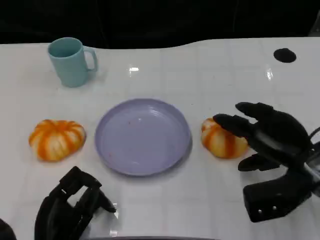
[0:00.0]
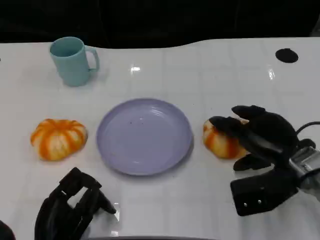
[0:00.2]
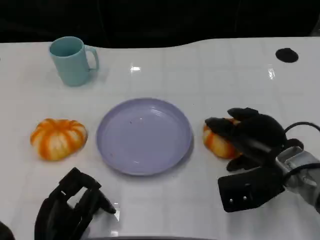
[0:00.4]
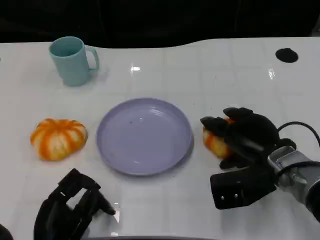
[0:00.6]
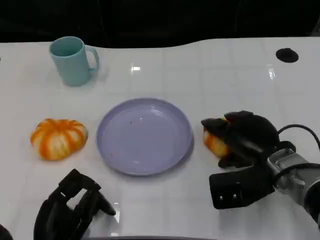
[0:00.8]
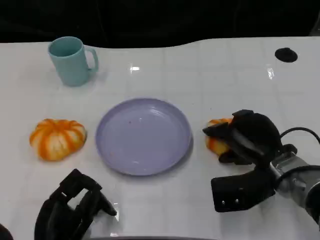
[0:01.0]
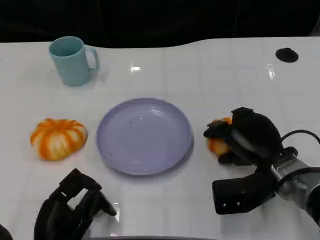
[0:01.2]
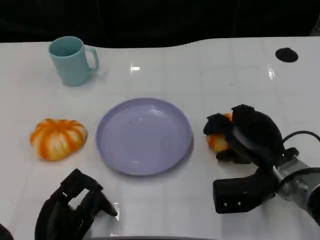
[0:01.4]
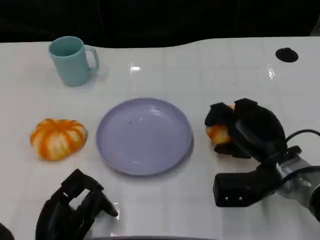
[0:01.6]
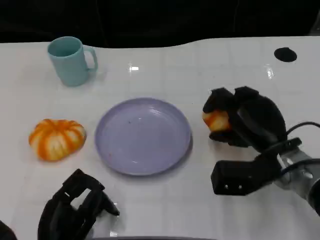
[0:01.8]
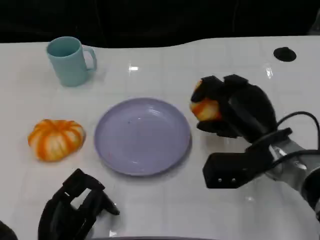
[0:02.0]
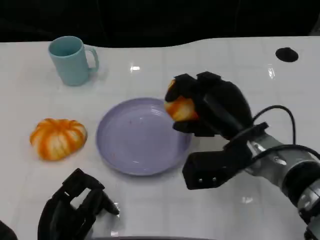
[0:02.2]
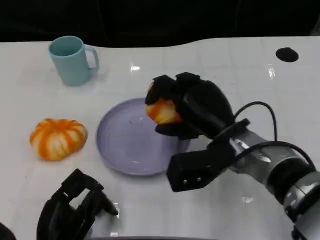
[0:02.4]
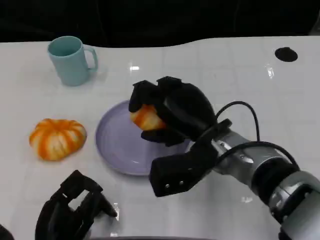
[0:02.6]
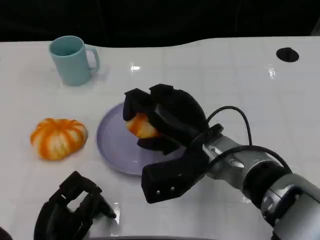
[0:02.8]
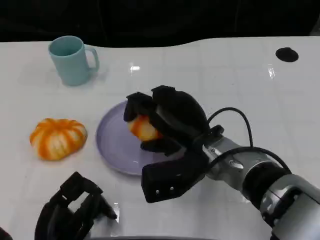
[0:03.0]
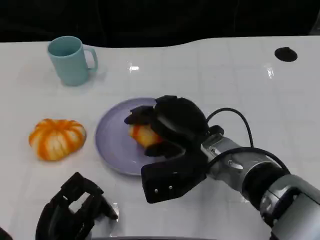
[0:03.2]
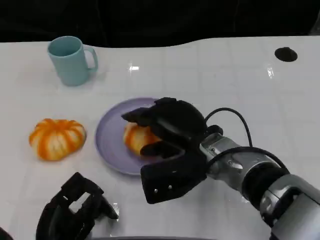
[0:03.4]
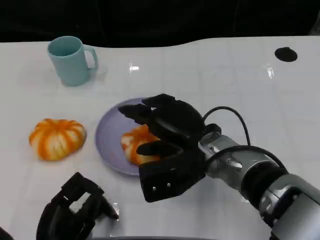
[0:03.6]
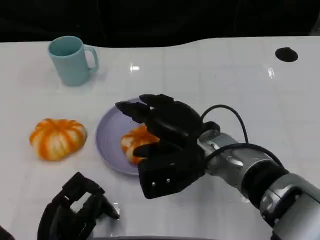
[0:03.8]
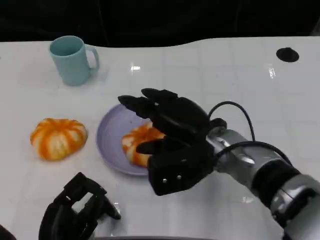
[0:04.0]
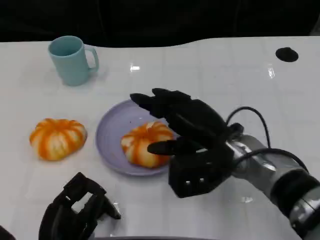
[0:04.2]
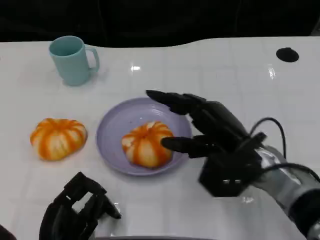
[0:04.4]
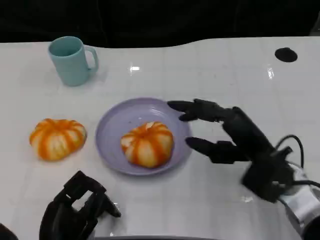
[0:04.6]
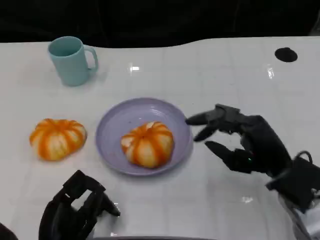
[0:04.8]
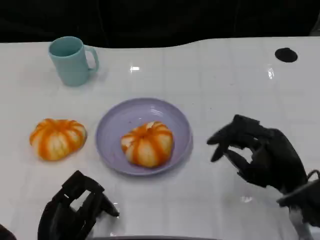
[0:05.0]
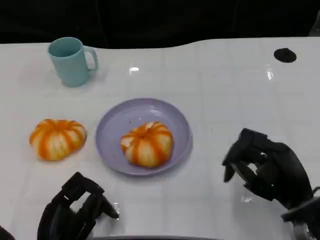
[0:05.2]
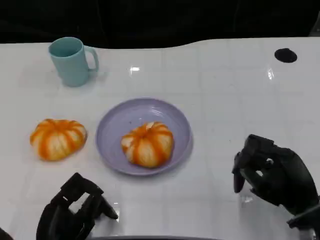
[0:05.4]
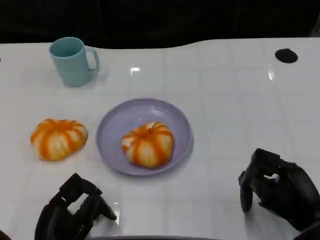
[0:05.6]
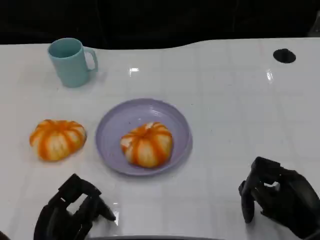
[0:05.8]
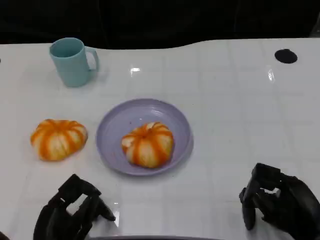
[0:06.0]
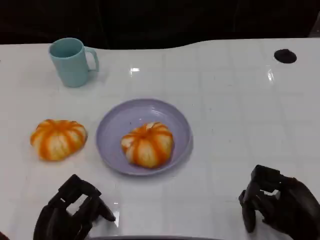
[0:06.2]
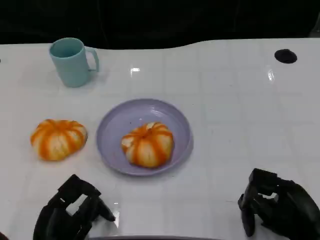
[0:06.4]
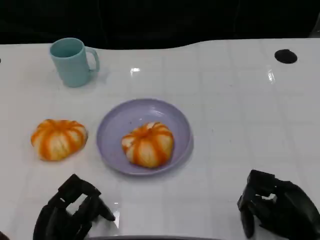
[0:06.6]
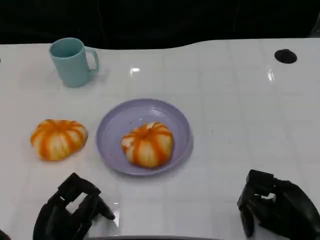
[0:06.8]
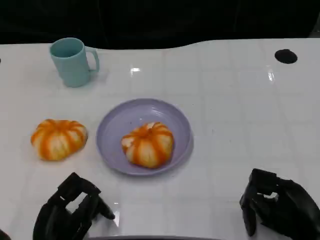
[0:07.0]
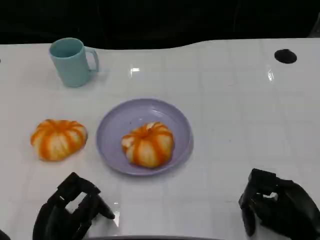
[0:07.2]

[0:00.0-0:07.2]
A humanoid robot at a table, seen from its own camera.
Task of the whole recording: Grasp the bread from the table and place it into the plate.
0:00.0 to 0:01.4: There are only small adjustments of the hands.
0:01.4 to 0:02.8: The right hand travels to the left by roughly 10 cm.
0:02.8 to 0:04.4: The right hand shifts some 5 cm to the right.
0:04.4 to 0:05.8: The right hand heads to the right, backward and downward, covering approximately 15 cm.
0:05.8 to 0:07.2: The hands move only a little.

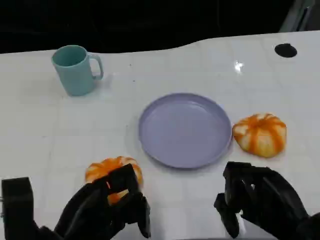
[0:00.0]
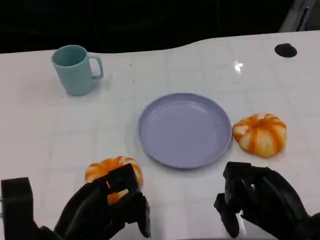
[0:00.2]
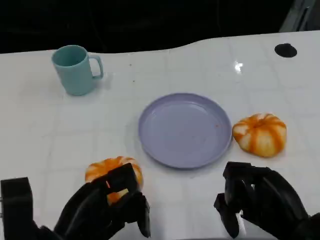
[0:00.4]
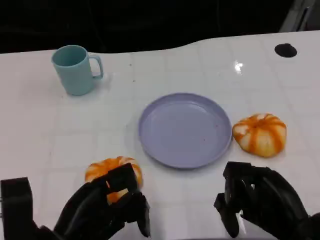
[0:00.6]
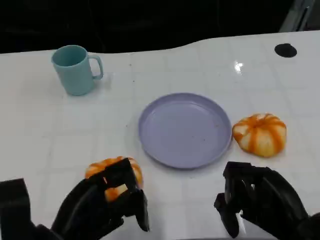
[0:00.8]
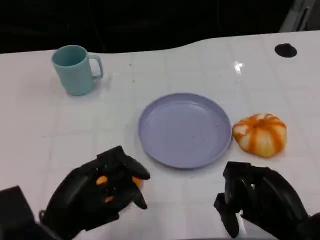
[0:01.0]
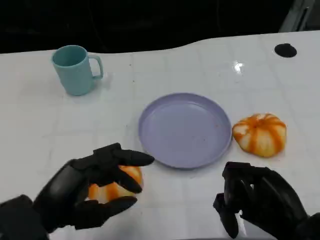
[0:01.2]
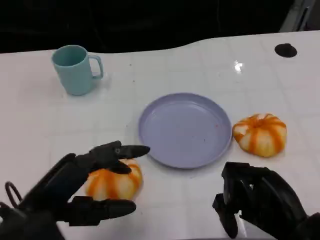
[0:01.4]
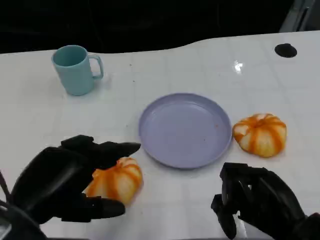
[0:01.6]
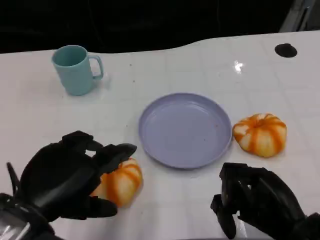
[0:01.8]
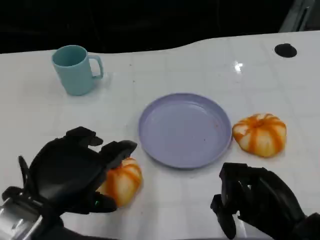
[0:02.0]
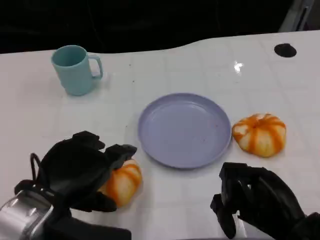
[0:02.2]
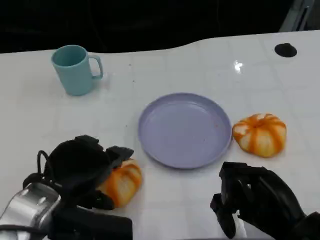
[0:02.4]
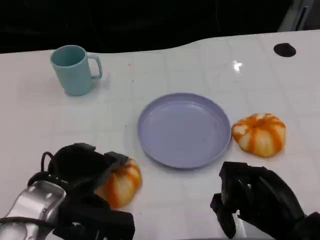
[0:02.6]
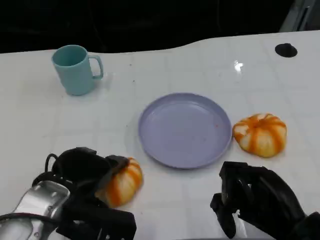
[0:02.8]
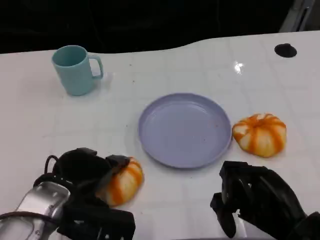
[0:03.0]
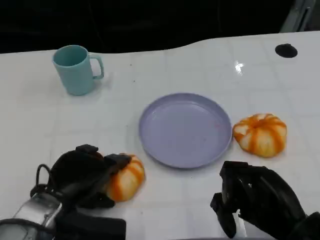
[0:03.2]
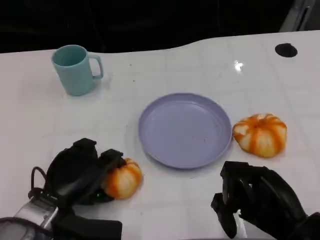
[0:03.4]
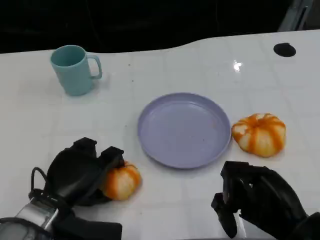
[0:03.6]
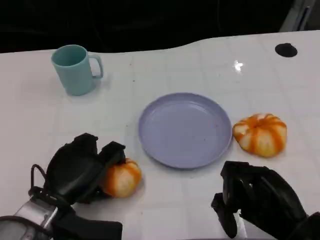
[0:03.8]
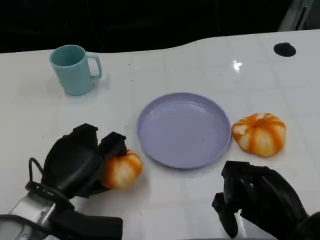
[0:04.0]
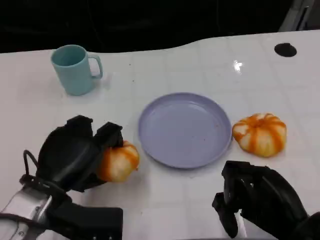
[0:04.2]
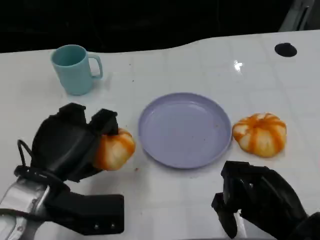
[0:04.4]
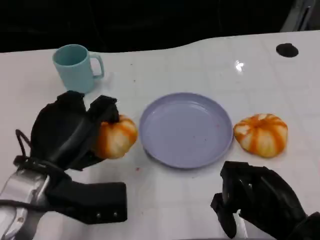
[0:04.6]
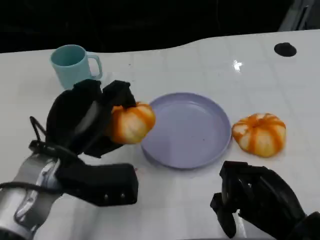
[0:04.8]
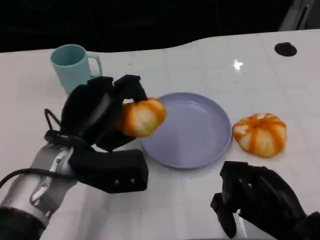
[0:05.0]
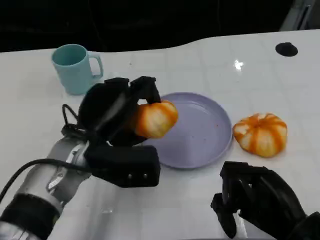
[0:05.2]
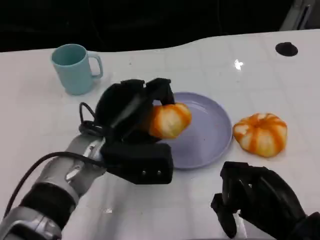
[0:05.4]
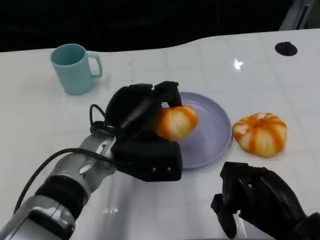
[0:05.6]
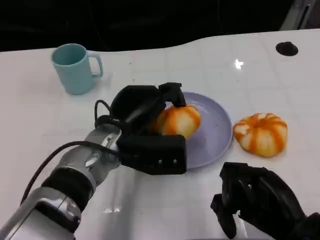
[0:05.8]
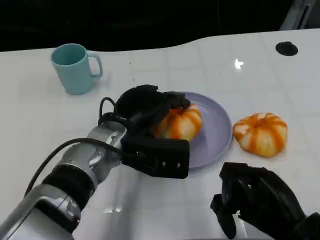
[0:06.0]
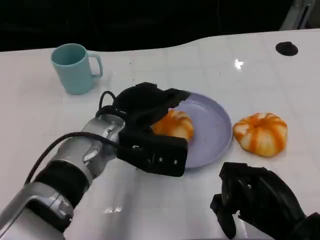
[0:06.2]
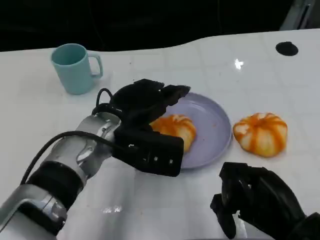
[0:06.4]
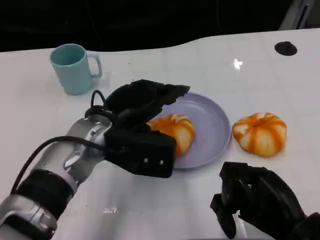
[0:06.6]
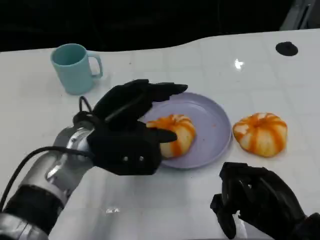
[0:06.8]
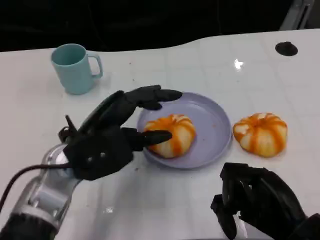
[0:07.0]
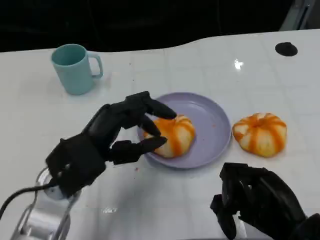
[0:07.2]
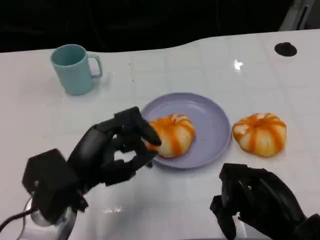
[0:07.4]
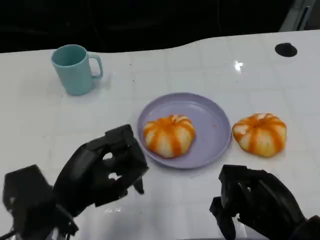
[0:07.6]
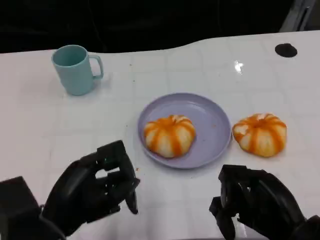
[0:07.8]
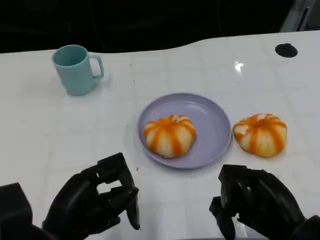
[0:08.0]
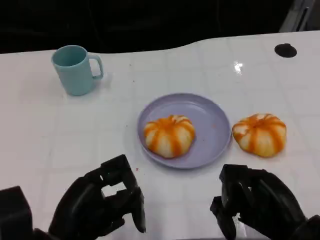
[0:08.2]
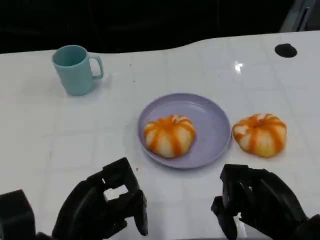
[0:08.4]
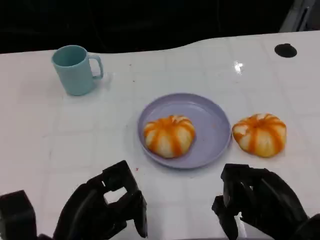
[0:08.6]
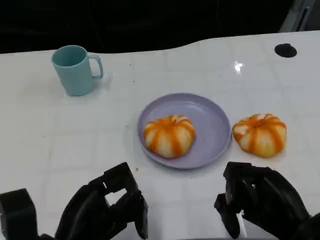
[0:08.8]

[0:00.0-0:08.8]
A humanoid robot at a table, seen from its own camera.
Task of the whole recording: Grasp the bread from the table and place it into the plate.
0:00.0 to 0:01.4: The left hand is displaced upward by about 5 cm.
0:01.4 to 0:03.0: The left hand shifts roughly 10 cm forward and downward.
0:04.4 to 0:05.8: The left hand is displaced to the right and forward by roughly 15 cm.
0:05.8 to 0:07.4: The left hand goes roughly 10 cm backward and to the left.
0:07.4 to 0:08.8: The left hand goes approximately 5 cm backward.

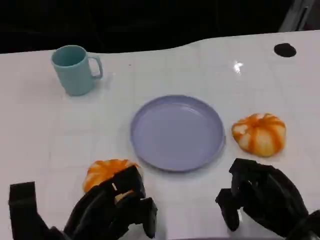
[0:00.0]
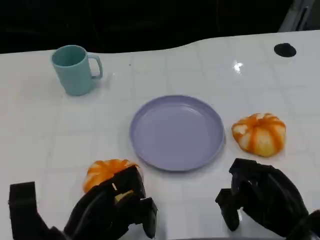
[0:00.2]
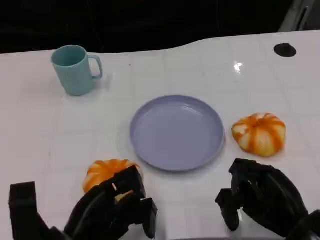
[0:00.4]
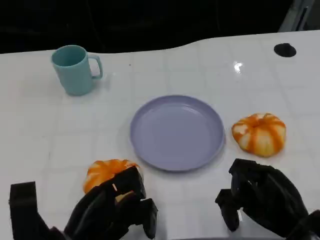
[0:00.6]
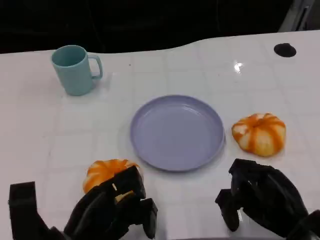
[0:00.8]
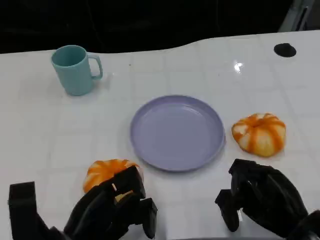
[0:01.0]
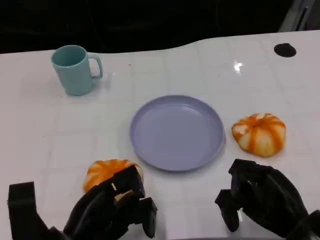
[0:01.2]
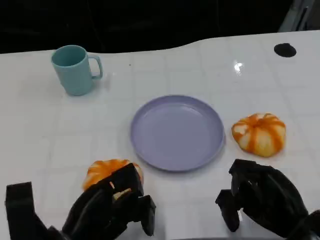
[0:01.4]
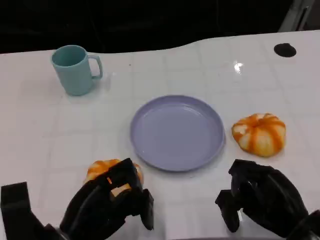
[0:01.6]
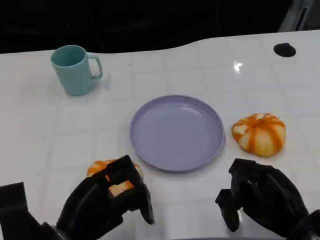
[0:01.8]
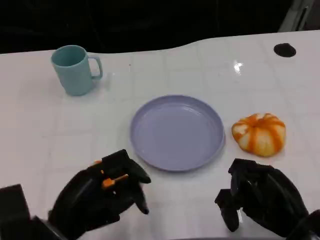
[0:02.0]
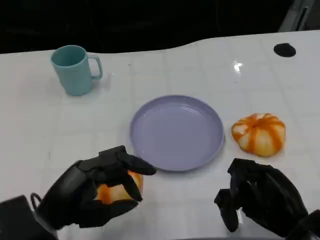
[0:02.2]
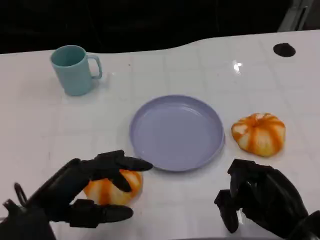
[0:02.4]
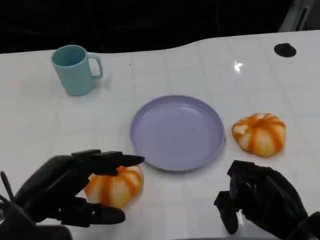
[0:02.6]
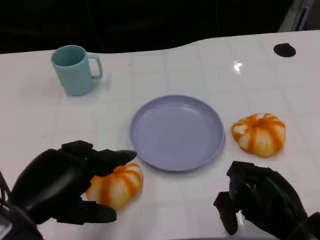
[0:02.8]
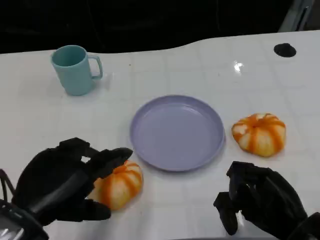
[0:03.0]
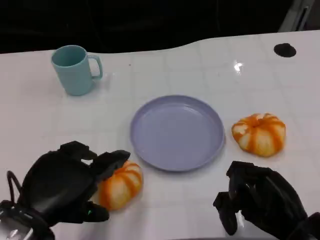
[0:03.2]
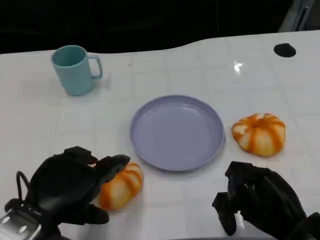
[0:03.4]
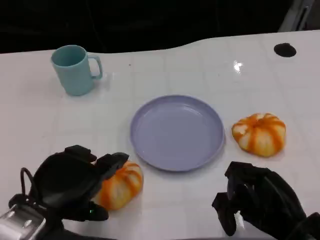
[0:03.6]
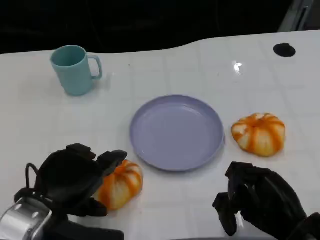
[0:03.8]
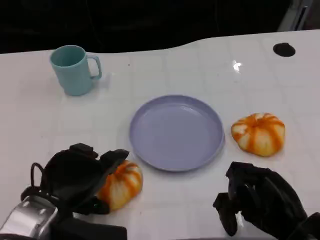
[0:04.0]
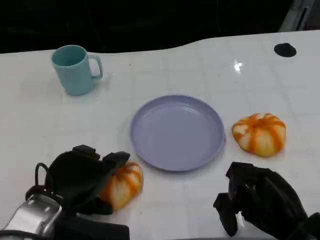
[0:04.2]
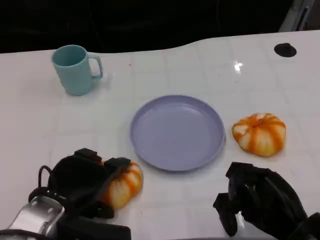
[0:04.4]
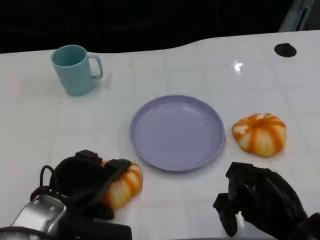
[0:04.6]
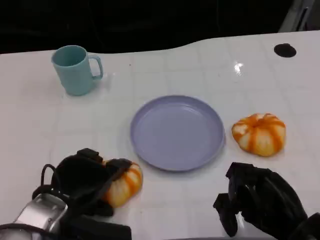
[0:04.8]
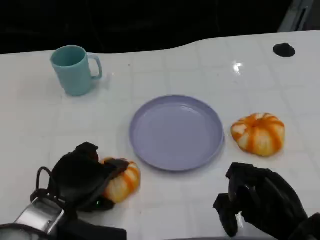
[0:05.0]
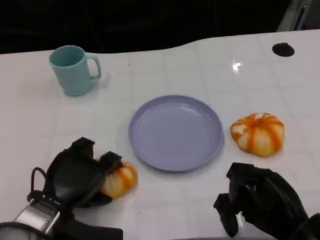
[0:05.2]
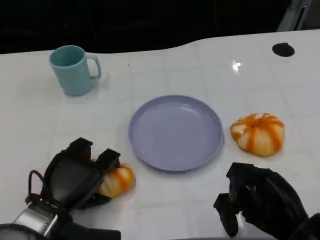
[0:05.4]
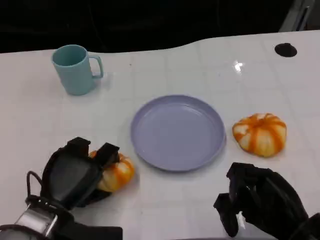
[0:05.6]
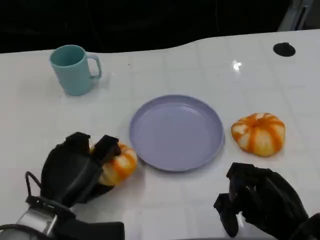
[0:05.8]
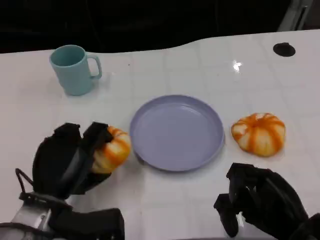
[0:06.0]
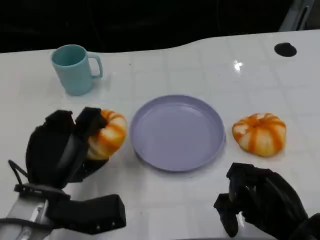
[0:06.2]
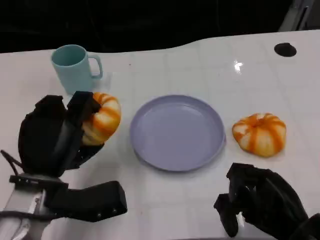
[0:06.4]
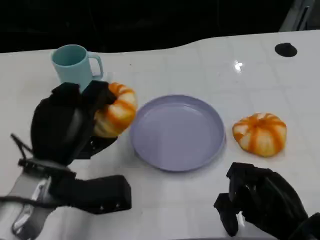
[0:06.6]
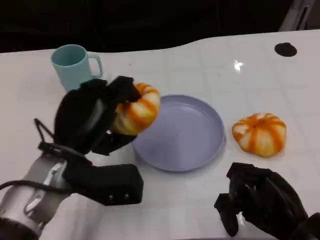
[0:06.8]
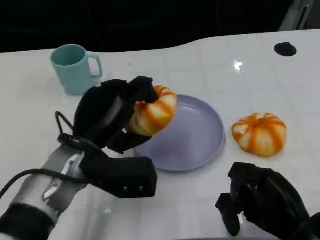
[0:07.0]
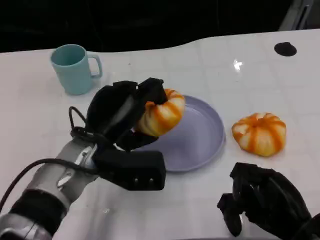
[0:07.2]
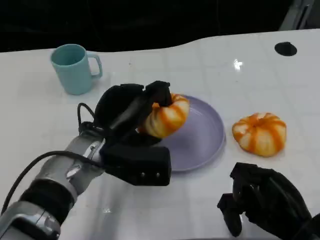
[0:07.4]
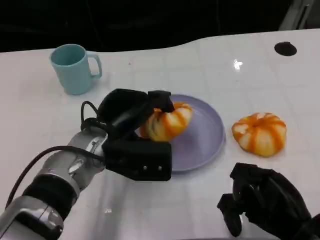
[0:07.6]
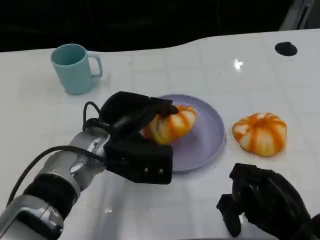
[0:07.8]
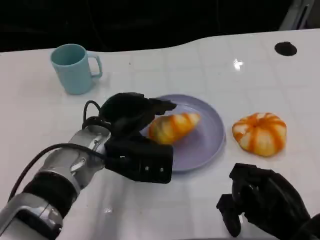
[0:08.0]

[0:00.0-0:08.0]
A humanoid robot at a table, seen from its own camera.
Task of the whole recording: Grasp the bread from the table and place it into the plate.
0:00.0 to 0:01.6: There are only small adjustments of the hands.
0:01.6 to 0:03.2: The left hand travels upward by about 5 cm.
0:03.2 to 0:04.8: The left hand goes roughly 5 cm downward.
0:06.4 to 0:08.0: The left hand is displaced to the right and forward by roughly 10 cm.
